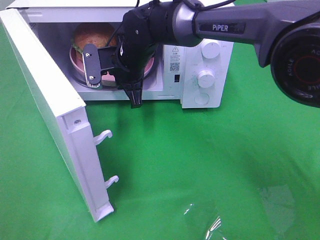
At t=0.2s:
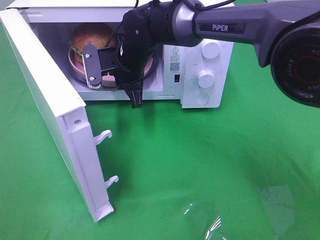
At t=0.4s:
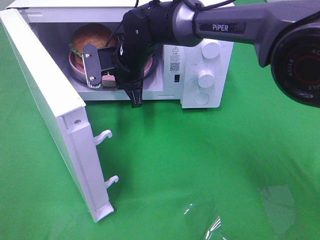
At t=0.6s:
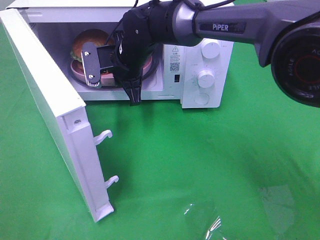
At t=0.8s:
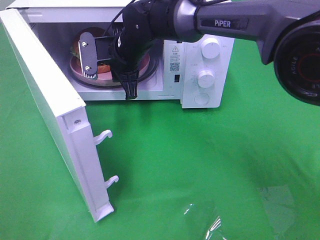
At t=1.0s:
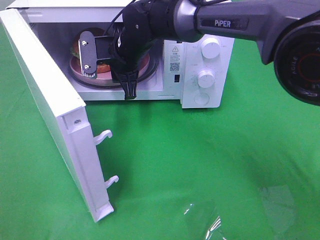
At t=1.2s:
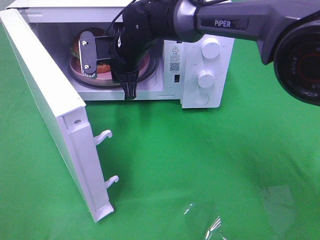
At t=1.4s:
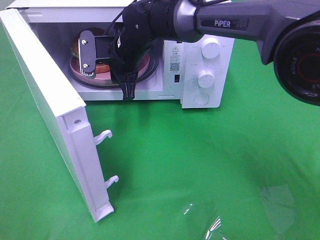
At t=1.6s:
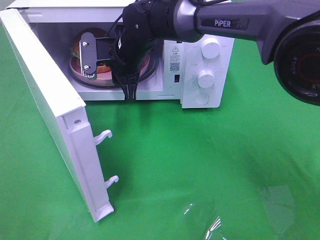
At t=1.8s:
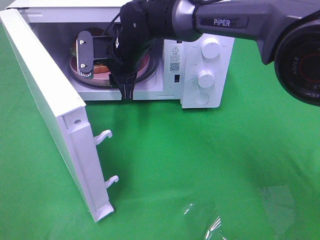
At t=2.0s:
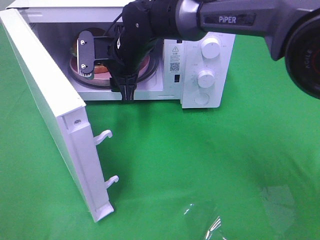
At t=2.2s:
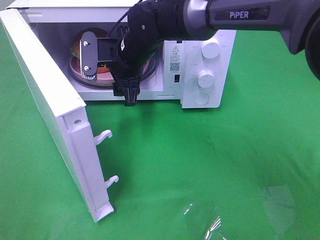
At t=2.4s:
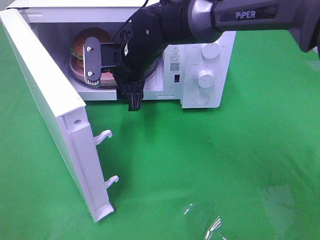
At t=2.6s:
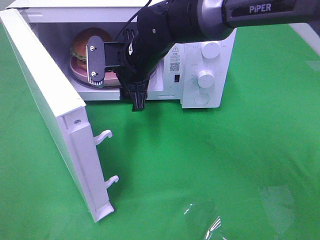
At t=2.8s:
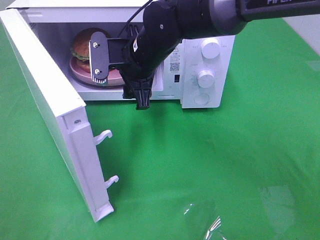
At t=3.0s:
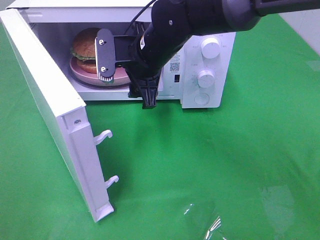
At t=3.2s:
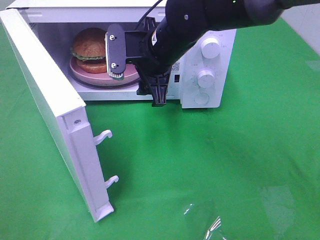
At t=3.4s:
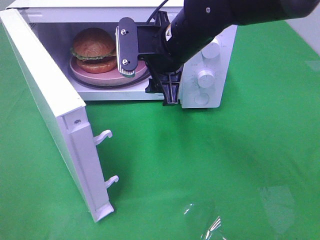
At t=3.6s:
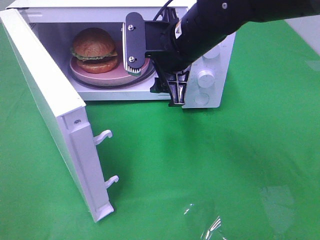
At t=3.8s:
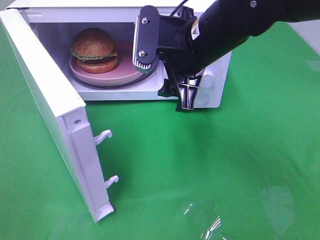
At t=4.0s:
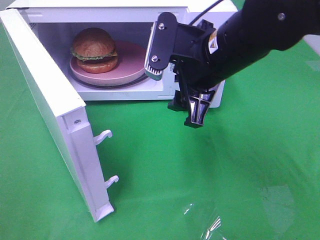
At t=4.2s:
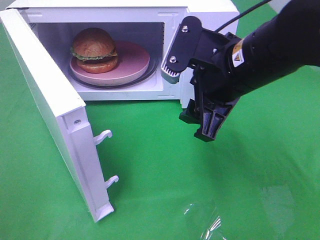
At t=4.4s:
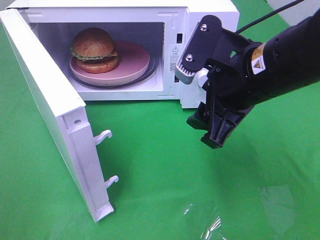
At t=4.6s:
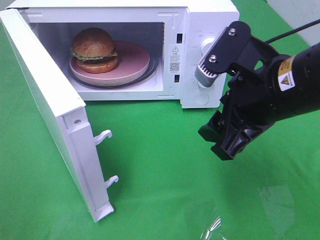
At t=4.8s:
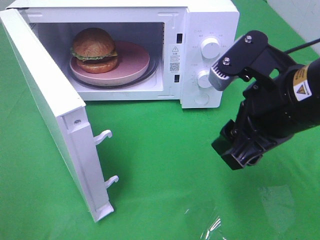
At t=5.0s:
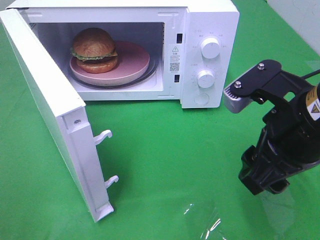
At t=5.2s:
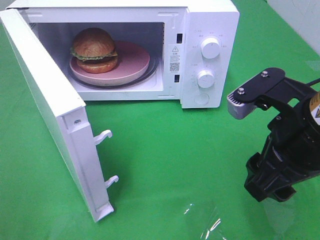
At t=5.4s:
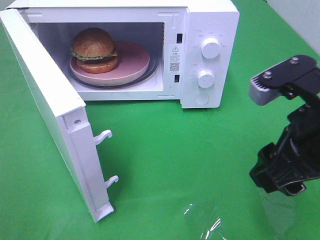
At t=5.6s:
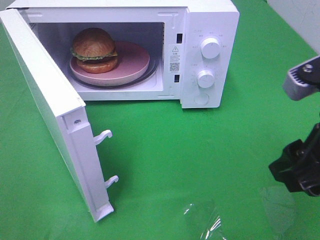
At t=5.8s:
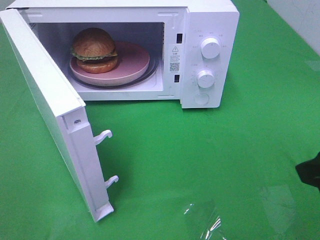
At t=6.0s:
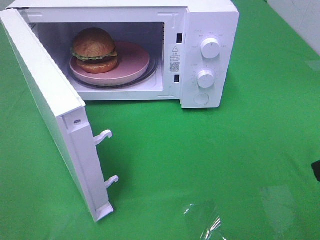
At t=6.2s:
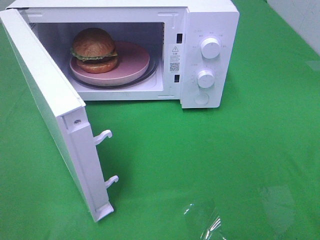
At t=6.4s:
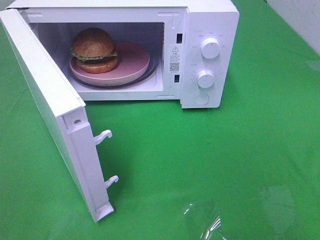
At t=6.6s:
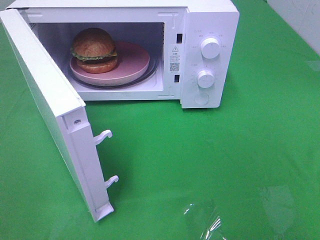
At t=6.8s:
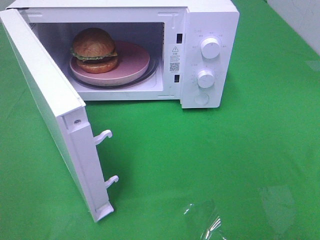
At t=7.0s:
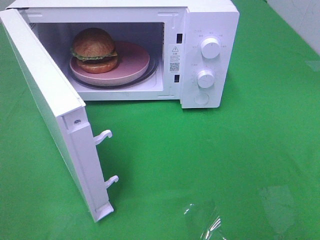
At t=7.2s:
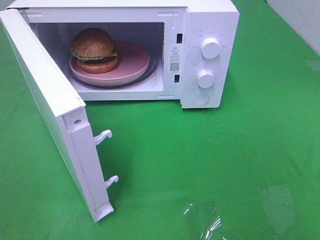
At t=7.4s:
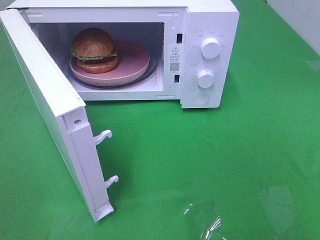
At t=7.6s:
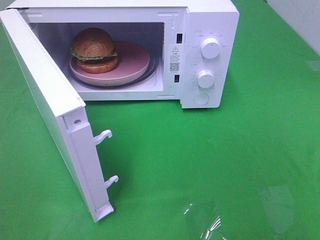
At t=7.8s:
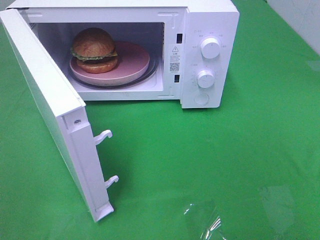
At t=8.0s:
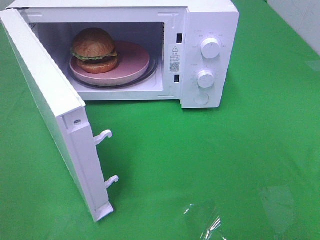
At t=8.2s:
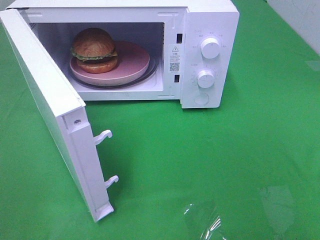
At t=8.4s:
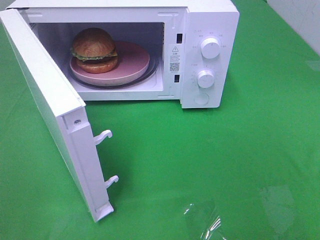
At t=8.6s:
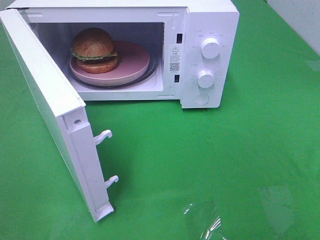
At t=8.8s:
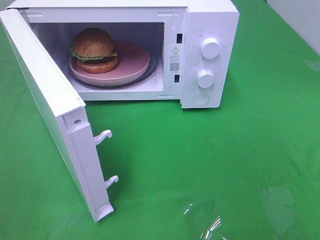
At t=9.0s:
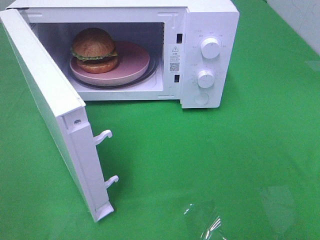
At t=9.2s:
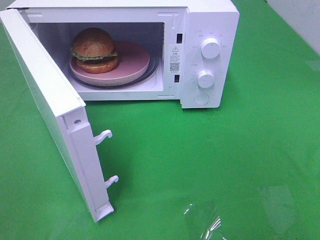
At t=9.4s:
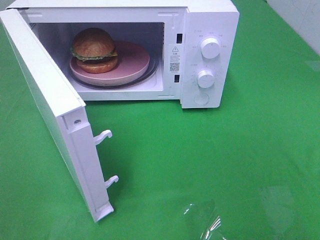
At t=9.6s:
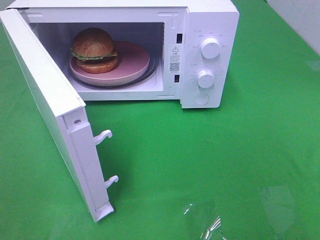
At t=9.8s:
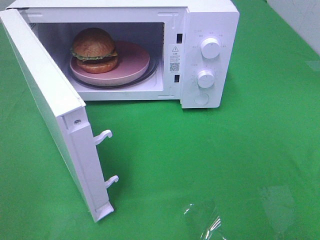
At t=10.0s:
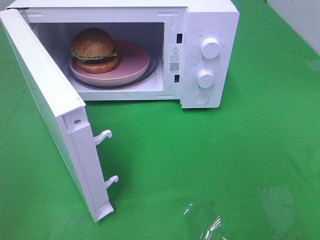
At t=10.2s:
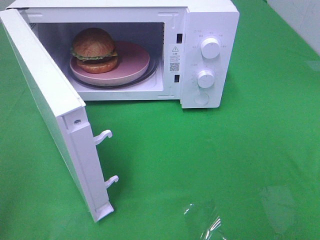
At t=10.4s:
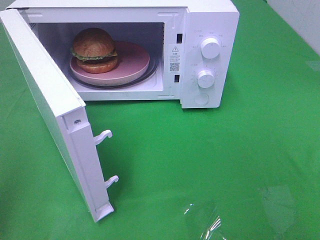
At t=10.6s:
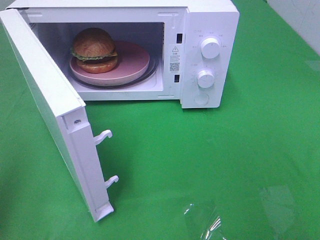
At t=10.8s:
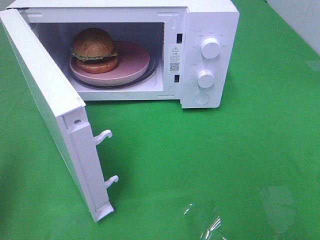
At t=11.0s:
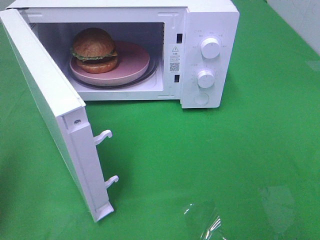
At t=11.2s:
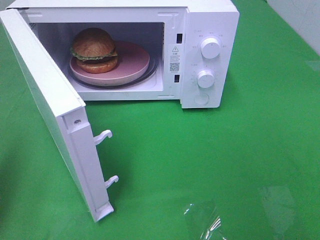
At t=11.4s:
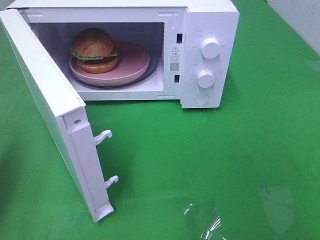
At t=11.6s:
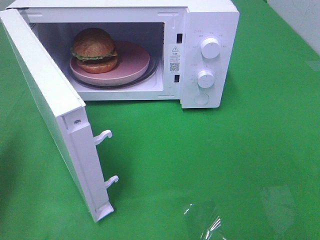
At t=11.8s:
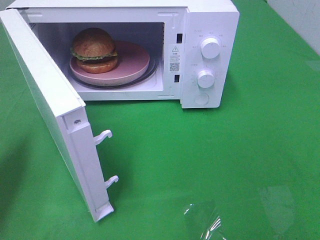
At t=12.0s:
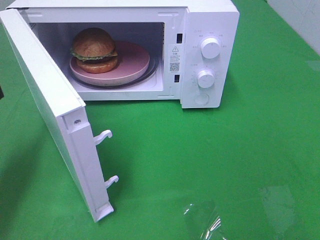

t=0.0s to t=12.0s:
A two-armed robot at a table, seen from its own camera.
Task of the whole recording: Heat the burger.
t=0.0s to t=1.6s: The right gripper opens its fingers.
t=1.6s to t=3.0s: The right gripper heads backward, covering some 5 cm, and opens.
t=3.0s to t=4.4s: The right gripper shifts roughly 20 cm backward and to the right.
t=4.4s to t=6.0s: The right gripper travels backward and to the right by about 20 cm.
t=7.6s to t=9.0s: Neither gripper changes place.
t=10.4s to t=12.0s: The left gripper is displaced forward and downward by approximately 20 cm.

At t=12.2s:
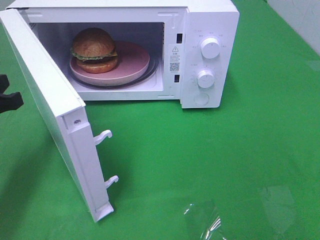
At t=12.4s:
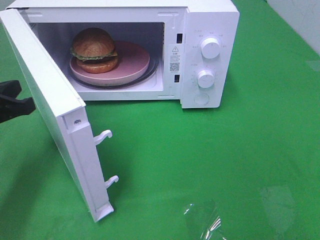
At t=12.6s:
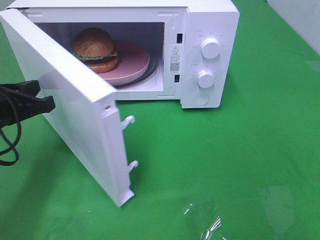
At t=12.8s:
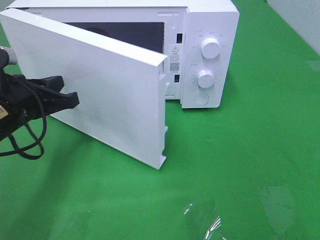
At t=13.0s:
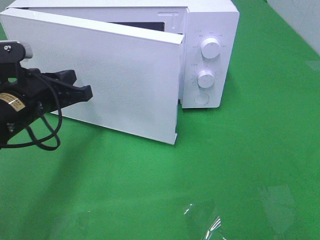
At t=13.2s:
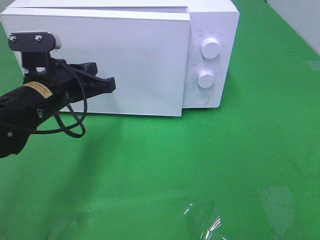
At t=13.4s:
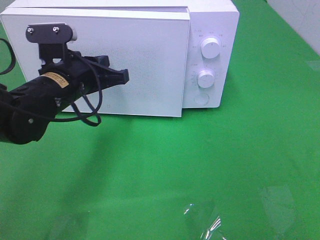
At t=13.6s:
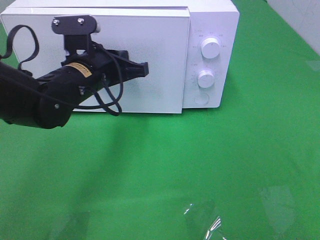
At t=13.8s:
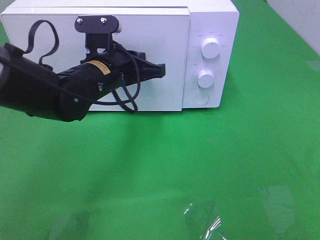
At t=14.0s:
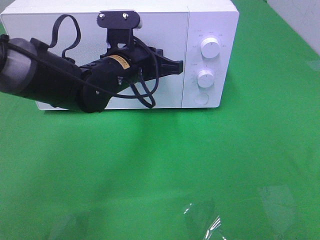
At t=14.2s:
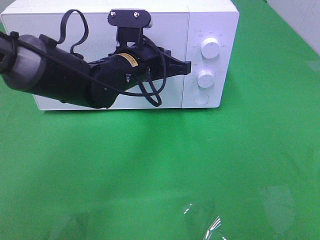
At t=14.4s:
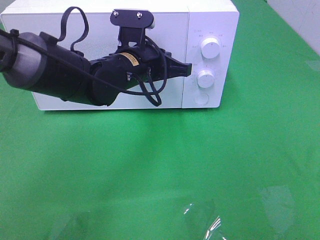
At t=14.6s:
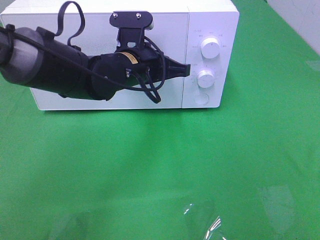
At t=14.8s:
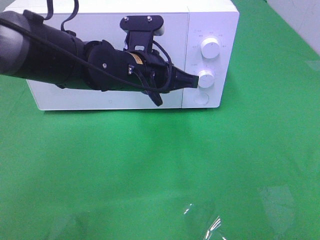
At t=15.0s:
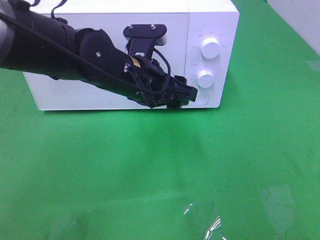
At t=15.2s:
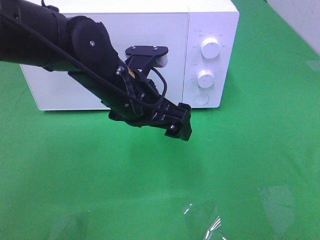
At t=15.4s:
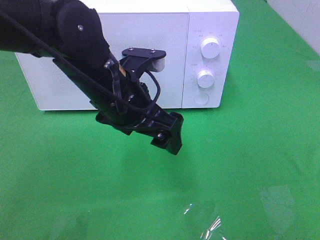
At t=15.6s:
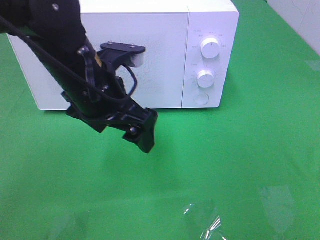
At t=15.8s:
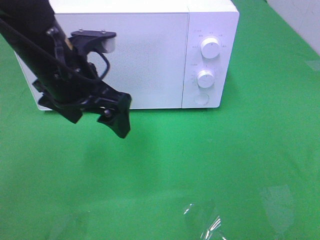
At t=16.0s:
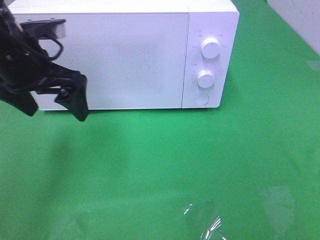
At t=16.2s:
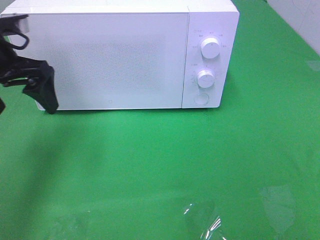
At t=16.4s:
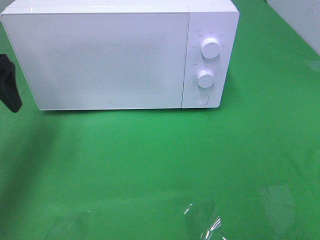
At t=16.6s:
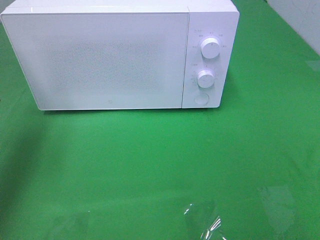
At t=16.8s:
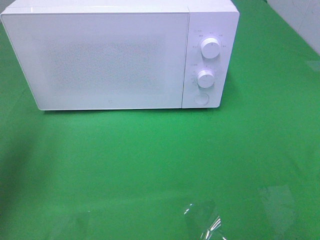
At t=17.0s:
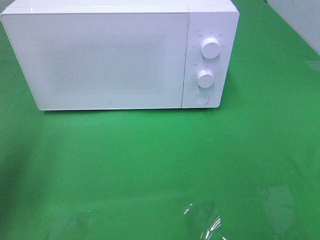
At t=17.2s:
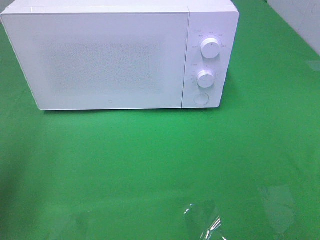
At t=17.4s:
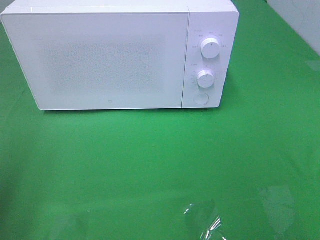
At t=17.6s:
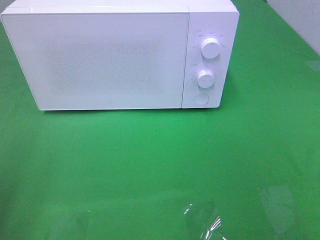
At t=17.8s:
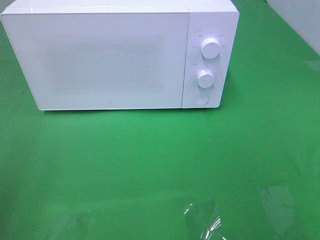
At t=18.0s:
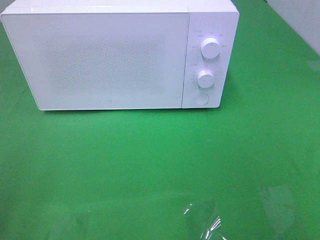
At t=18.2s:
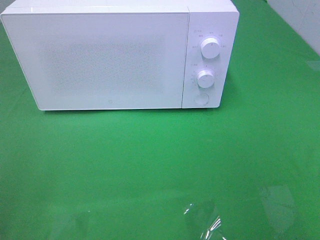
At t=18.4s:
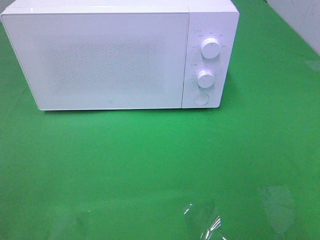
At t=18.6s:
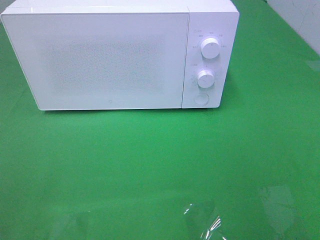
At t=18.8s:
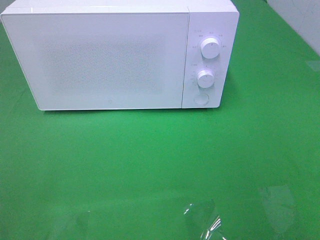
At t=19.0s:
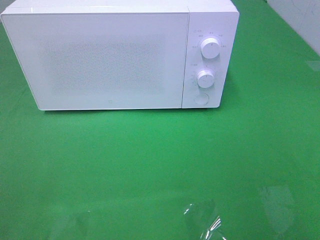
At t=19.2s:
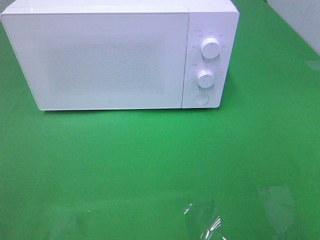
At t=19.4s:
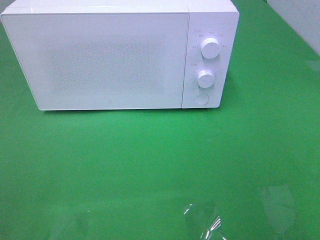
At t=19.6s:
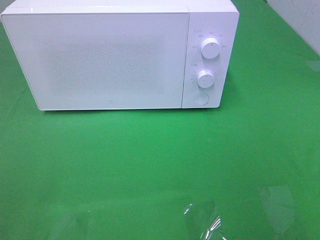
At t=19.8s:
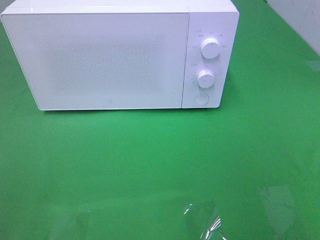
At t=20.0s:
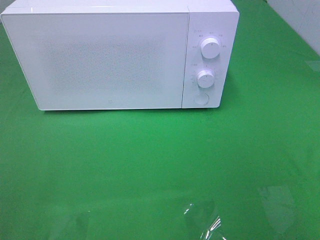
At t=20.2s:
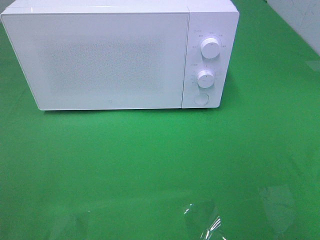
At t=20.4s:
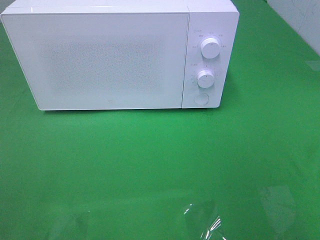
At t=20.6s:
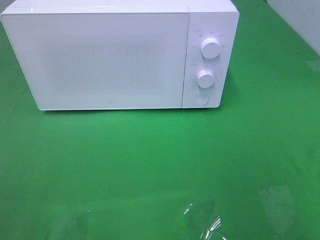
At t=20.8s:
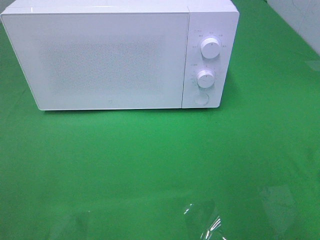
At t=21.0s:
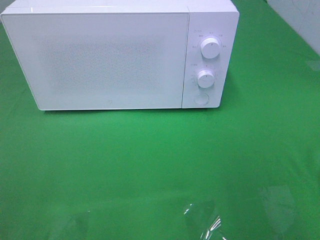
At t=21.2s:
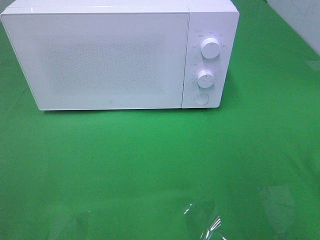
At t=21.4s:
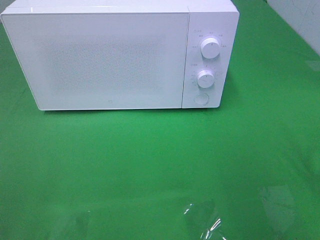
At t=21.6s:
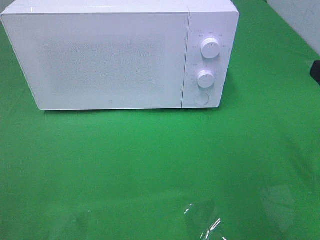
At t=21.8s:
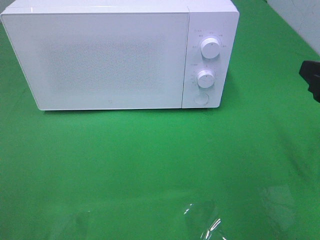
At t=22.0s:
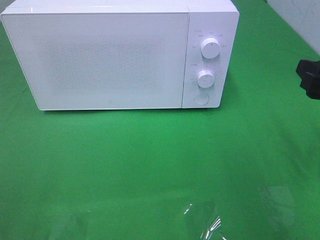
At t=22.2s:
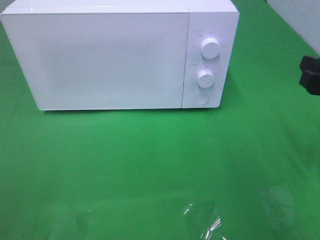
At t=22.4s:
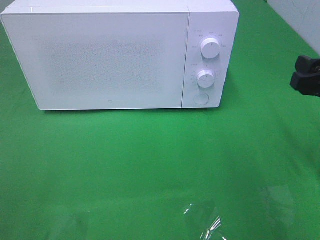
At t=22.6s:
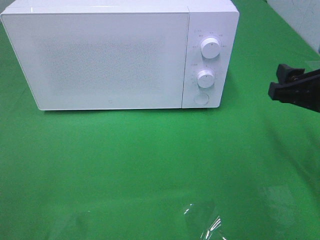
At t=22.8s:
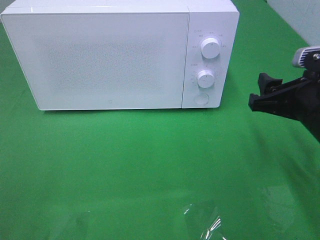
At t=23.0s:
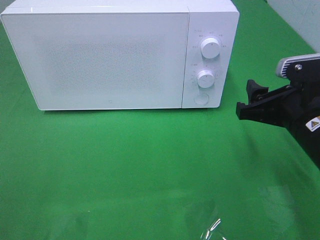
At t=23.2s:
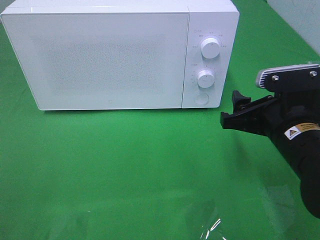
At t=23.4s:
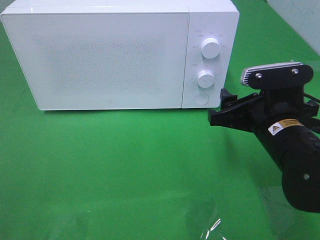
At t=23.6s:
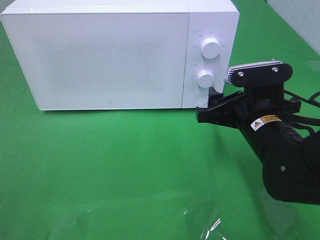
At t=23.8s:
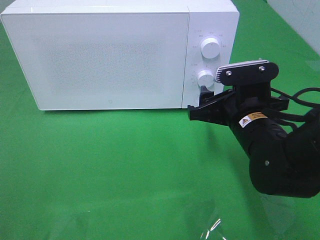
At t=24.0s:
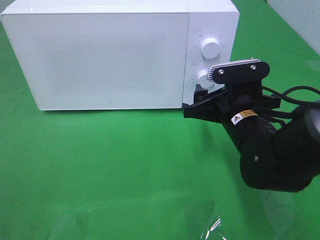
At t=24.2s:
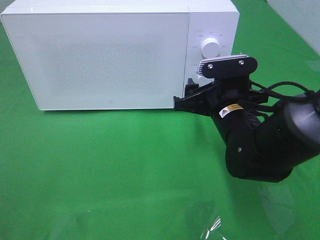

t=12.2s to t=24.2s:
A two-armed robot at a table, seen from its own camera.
Task of the whole recording: Heat the burger.
Step, t=12.2s to t=14.8s: Left hand: close the microwave door.
t=12.2s to t=13.8s: The left gripper is displaced to the right and forward by roughly 20 cm.
t=13.8s to t=15.2s: The left gripper travels backward by some 5 cm, and opens up.
t=15.2s to t=16.6s: The left gripper moves to the left, about 25 cm.
t=16.6s to t=18.2s: The left gripper shifts roughly 25 cm backward.
t=21.2s to t=22.6s: The right gripper shifts roughly 10 cm forward and downward.
t=22.6s to t=24.2s: The right gripper shifts approximately 15 cm to the left, downward and forward.
